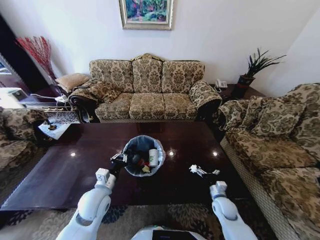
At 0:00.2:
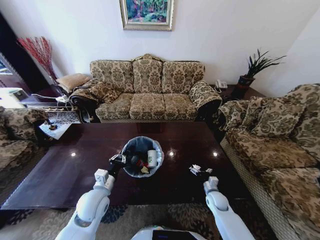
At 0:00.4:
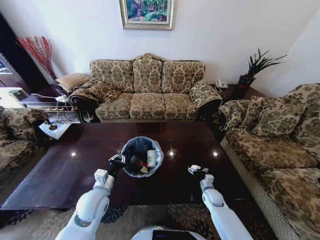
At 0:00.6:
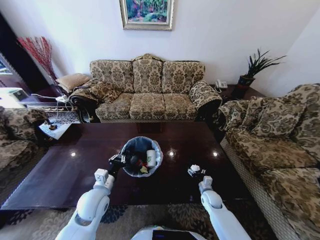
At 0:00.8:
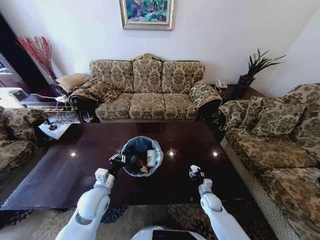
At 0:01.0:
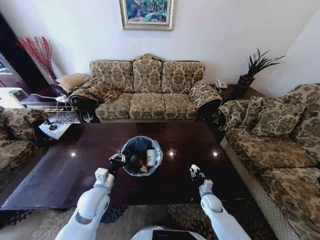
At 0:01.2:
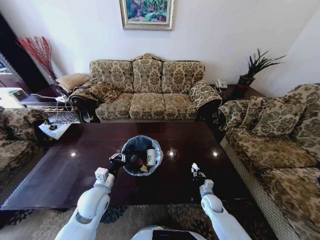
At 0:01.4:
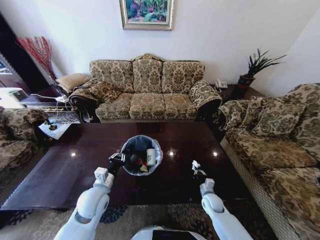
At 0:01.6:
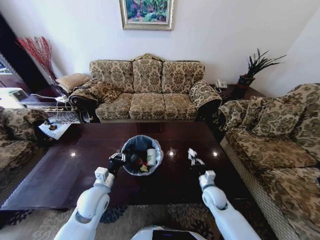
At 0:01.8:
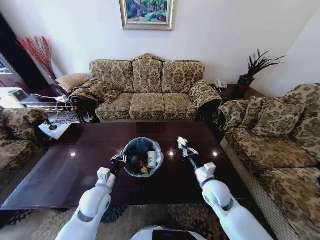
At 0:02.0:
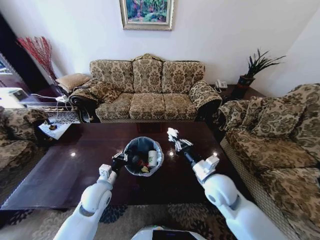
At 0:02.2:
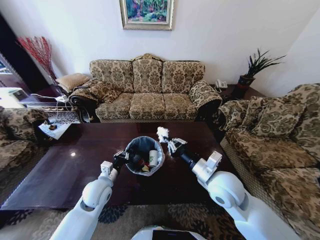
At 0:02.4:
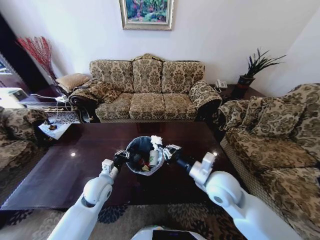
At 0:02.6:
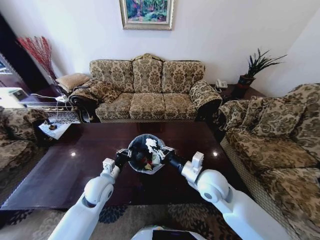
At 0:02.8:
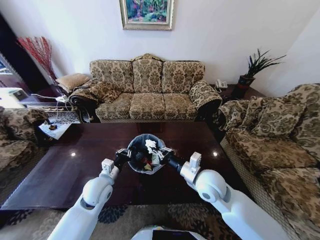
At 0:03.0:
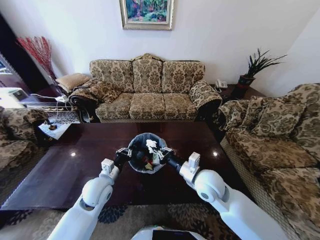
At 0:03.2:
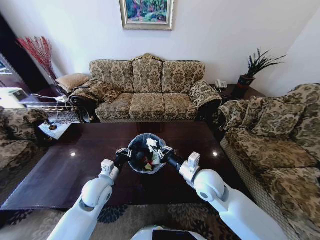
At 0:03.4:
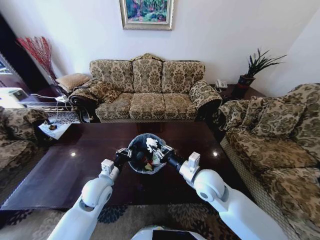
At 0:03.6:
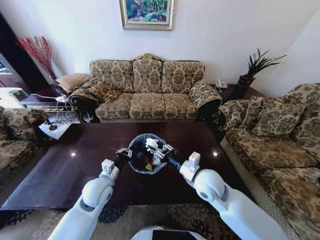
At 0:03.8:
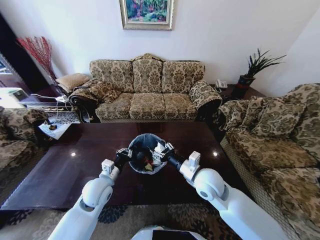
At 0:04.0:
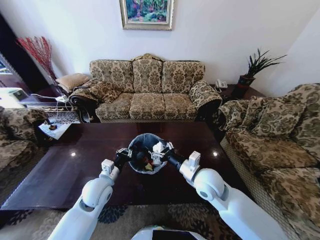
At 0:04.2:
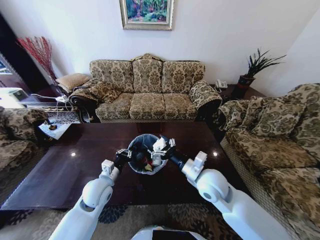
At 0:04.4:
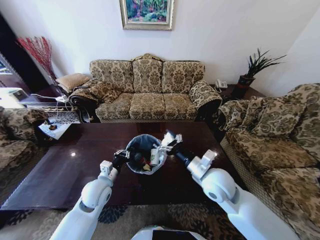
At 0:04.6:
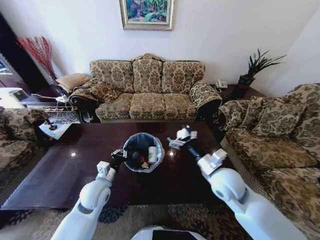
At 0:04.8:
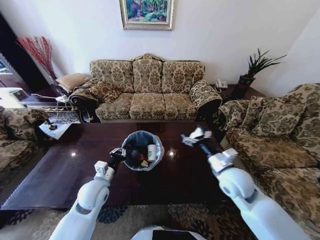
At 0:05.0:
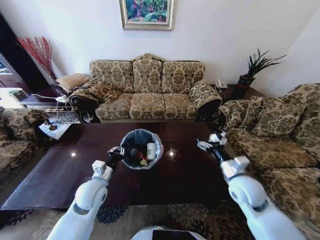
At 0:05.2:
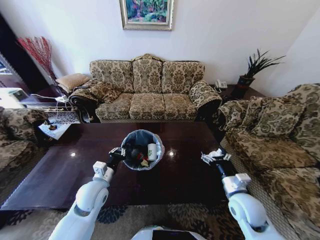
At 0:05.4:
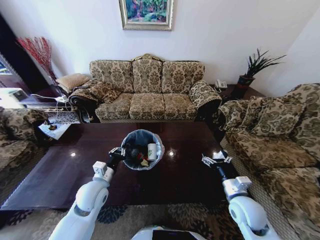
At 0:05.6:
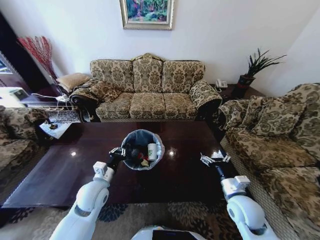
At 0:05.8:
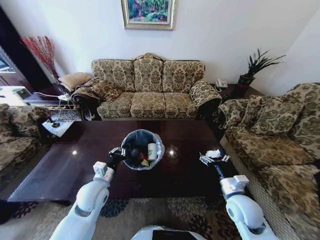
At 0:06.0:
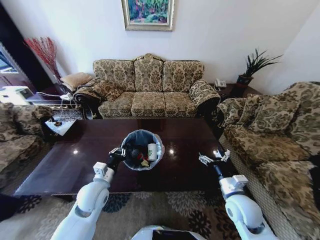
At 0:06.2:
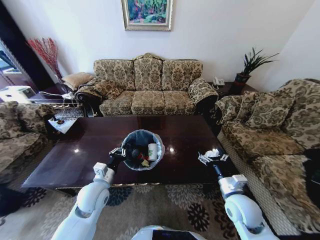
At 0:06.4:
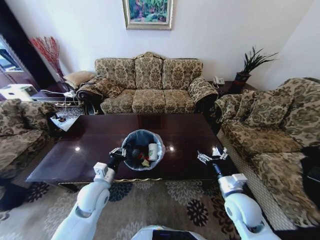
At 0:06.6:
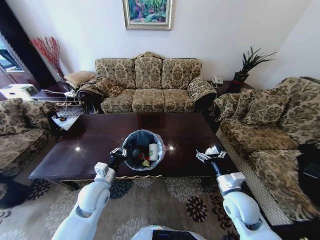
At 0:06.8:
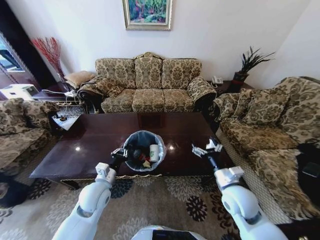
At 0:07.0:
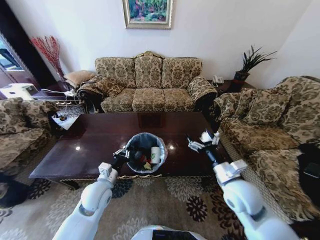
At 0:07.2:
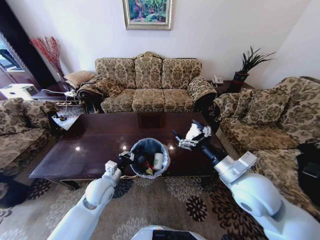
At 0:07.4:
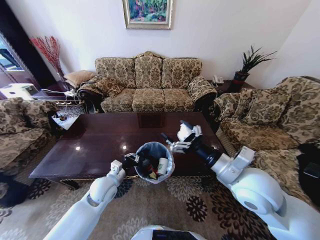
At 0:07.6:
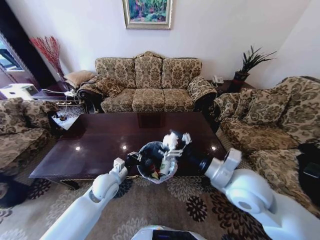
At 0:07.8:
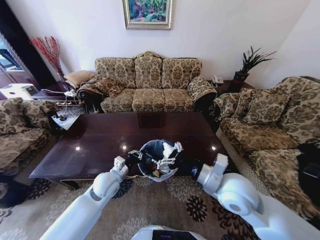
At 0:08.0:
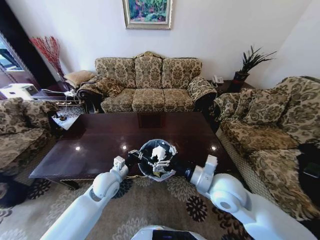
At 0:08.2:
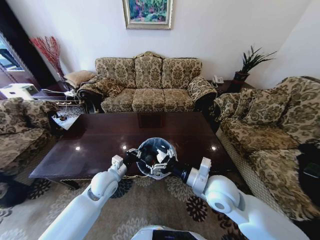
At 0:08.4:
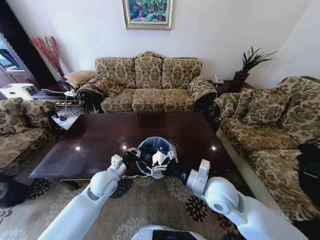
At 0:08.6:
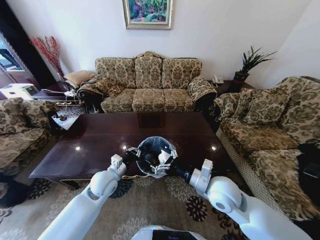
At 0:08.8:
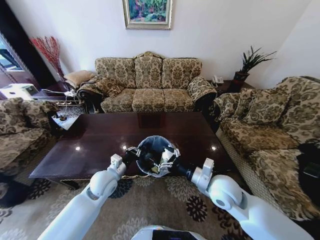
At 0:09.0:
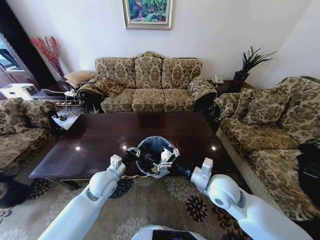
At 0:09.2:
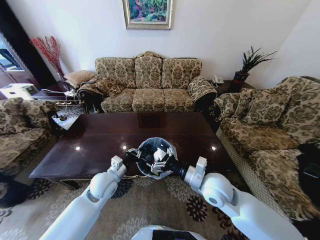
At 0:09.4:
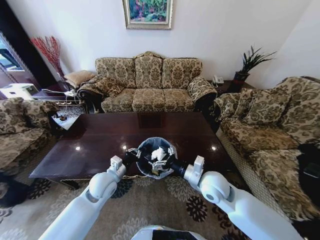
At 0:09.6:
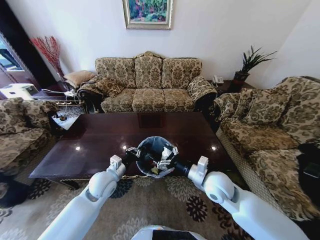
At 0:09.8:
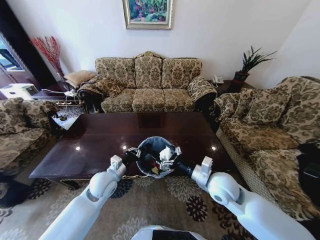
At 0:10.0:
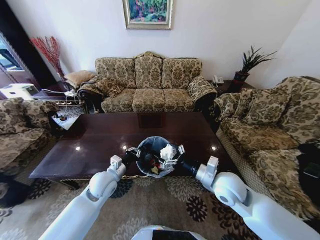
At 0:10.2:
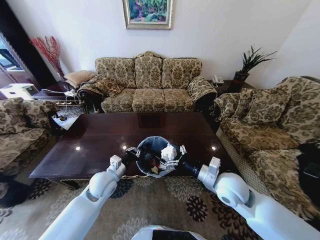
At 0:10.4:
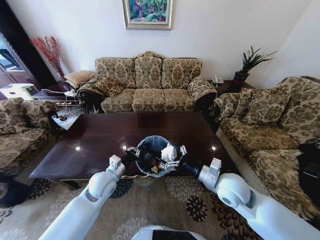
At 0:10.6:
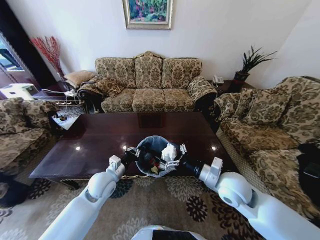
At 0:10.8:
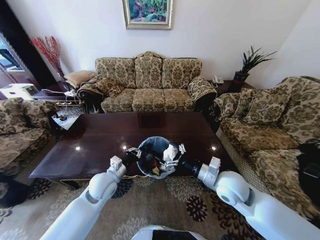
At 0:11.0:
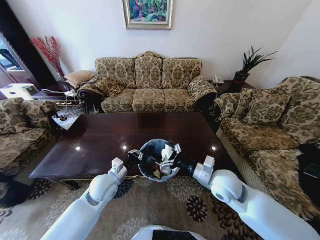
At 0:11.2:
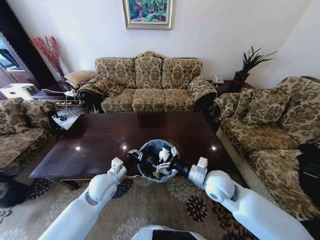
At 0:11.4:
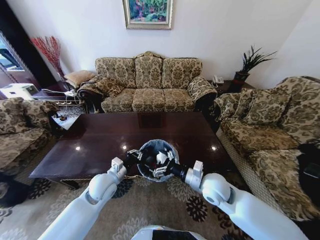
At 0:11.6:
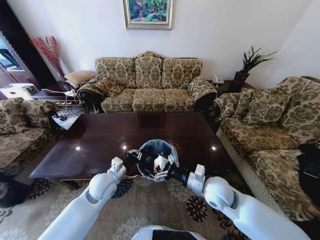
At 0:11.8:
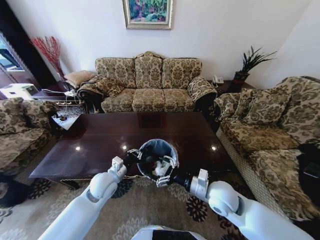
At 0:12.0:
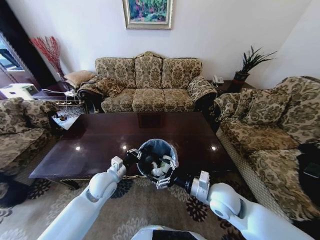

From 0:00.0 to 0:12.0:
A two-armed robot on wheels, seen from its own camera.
Task of the whole recording: Move to the front of the table and place the trash on the table into the trash bin.
From 0:00.0 to 0:01.6: The right gripper is displaced upward and to the left by about 10 cm, and closes.
From 0:01.6 to 0:03.0: The right gripper is displaced upward and to the left by some 20 cm.
From 0:03.0 to 0:04.4: The right gripper opens up.
From 0:04.4 to 0:06.0: The right gripper travels to the right and downward by about 15 cm.
From 0:06.0 to 0:07.6: The right gripper goes some 15 cm upward and to the left; the left gripper shifts by roughly 5 cm.
From 0:07.6 to 0:09.0: The right gripper goes about 10 cm downward.
From 0:09.0 to 0:12.0: There are only small adjustments of the grippers.

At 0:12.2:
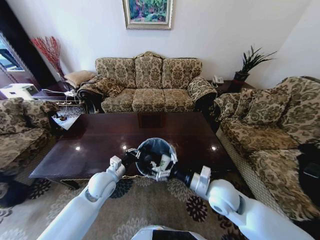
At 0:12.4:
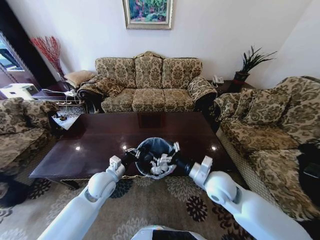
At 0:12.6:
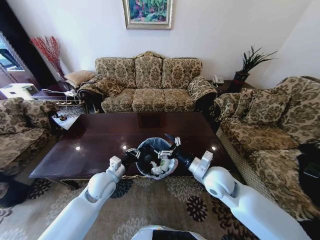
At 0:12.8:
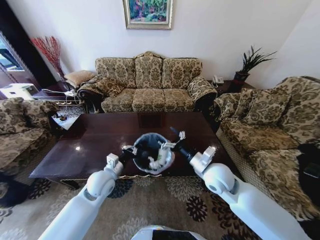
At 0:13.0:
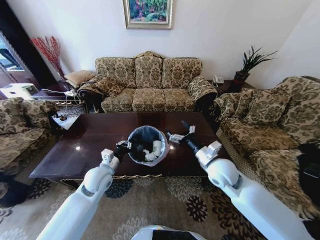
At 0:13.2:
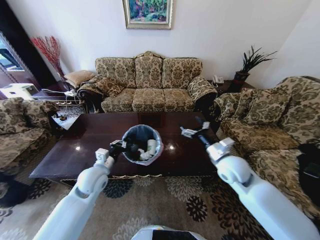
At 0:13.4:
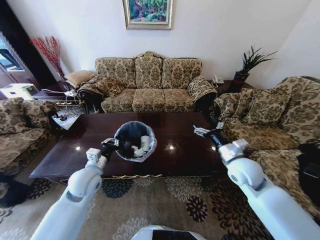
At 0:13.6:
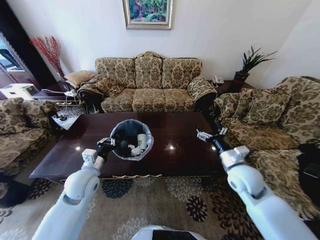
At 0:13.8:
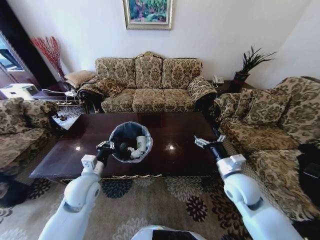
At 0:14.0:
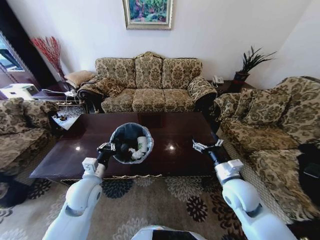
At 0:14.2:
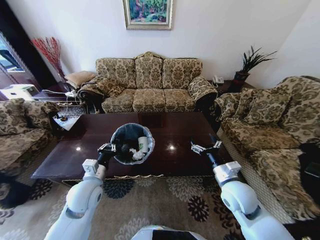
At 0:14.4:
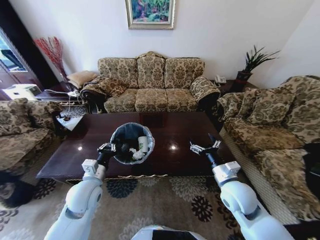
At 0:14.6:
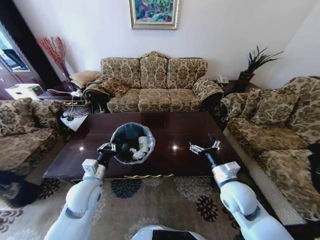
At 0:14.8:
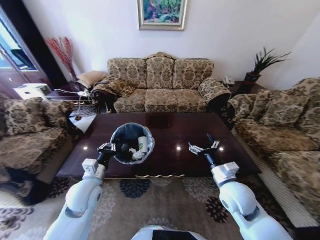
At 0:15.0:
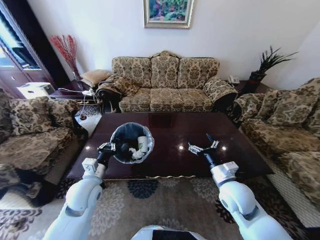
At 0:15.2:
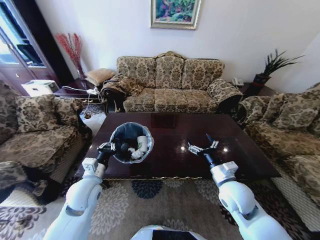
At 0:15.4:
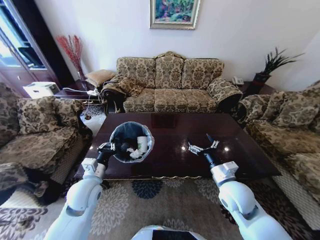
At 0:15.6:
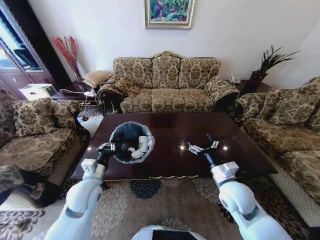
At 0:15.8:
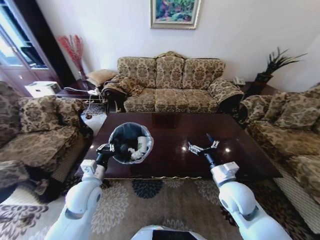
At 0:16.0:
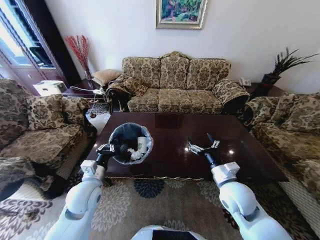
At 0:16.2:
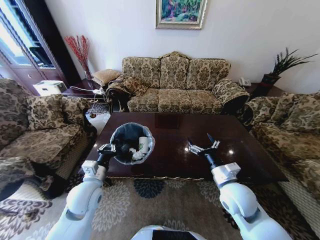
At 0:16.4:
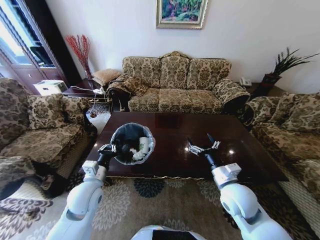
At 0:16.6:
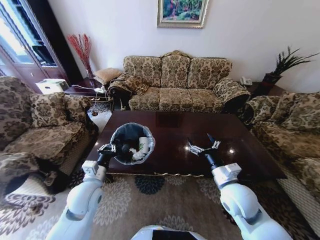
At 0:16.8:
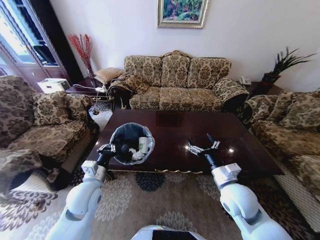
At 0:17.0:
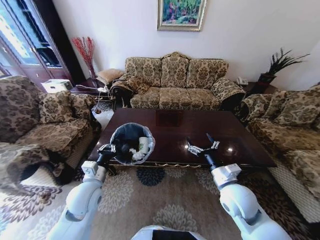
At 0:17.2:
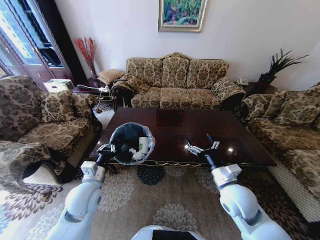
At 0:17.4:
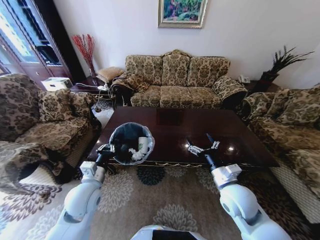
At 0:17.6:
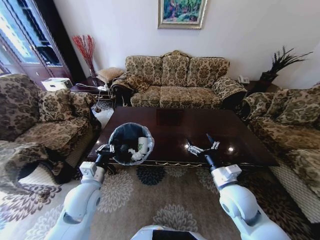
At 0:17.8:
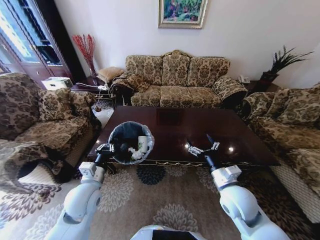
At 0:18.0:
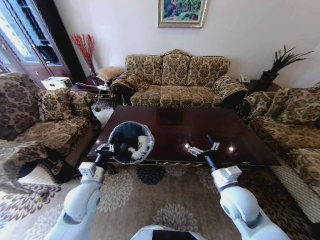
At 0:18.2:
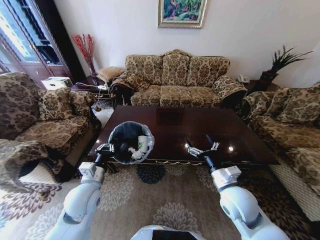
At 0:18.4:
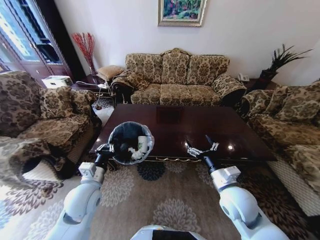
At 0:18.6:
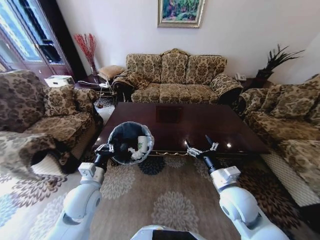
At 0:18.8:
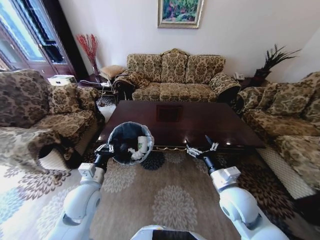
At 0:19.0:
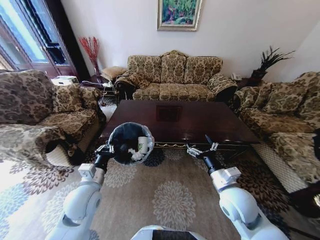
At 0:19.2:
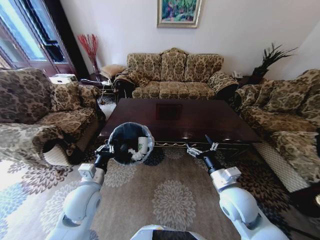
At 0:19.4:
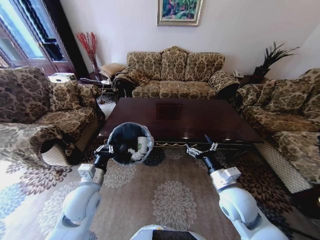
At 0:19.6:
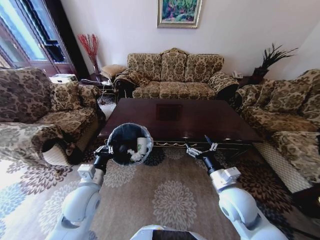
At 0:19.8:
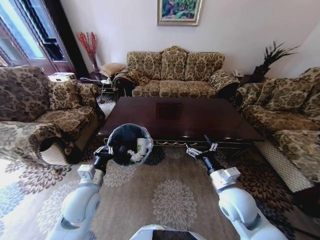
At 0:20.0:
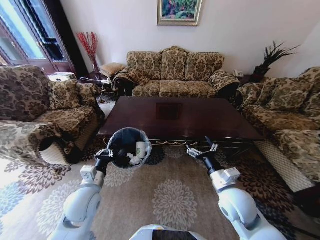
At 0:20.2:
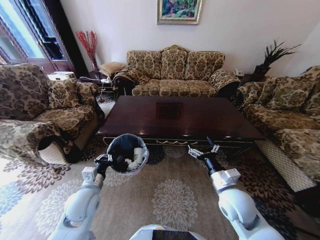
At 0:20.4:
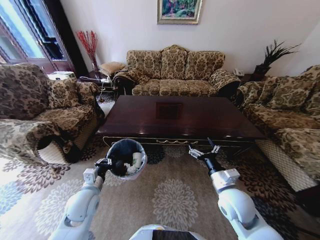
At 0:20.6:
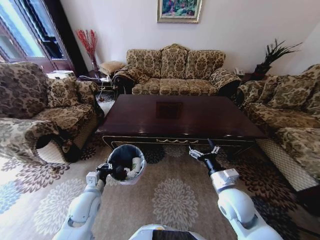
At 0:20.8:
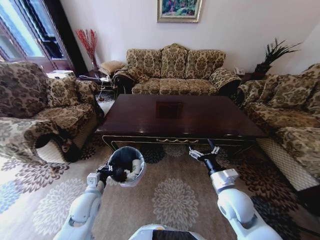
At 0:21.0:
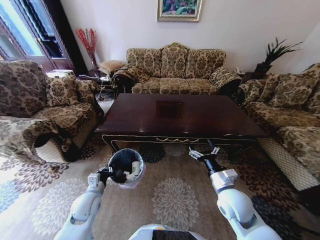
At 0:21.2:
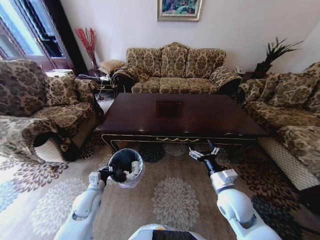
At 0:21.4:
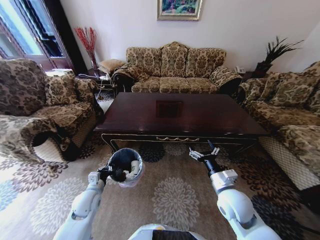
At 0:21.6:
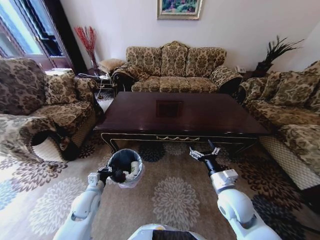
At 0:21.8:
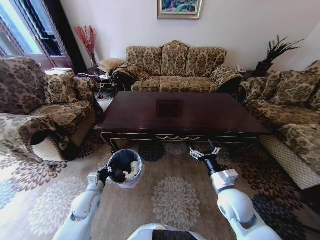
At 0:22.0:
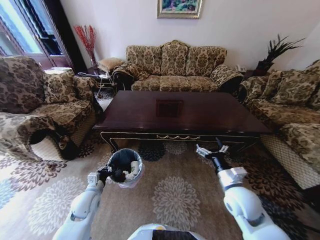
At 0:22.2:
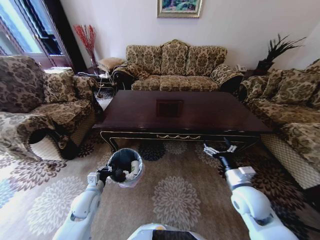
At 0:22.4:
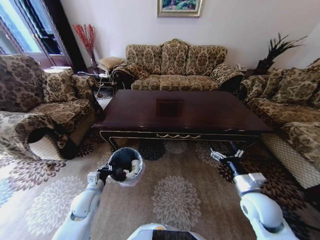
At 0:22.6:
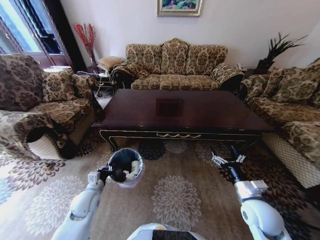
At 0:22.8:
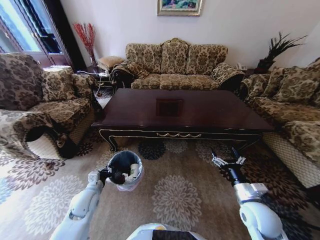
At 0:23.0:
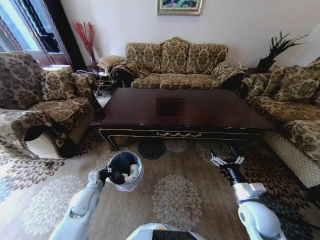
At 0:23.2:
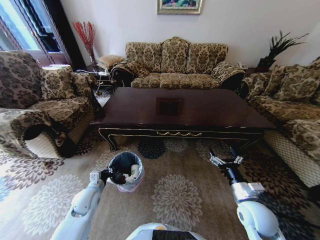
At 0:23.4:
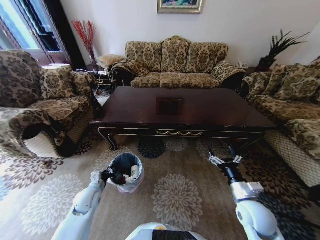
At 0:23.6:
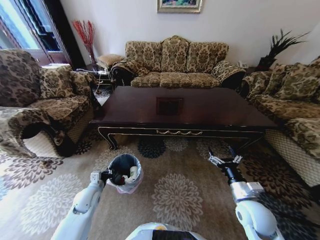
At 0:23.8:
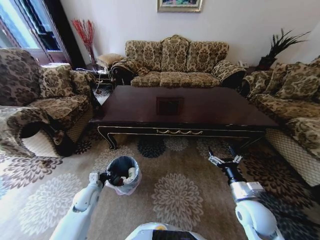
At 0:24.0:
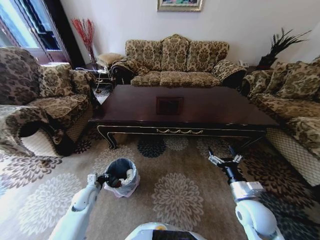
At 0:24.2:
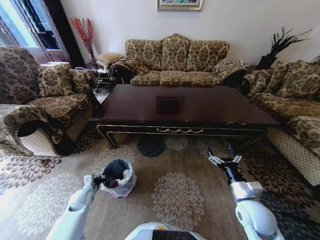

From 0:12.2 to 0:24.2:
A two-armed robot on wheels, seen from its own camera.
Task of the whole recording: Move to the front of the table and place the trash on the table into the trash bin.
From 0:12.2 to 0:13.8: The left gripper changes place by approximately 5 cm; the right gripper goes about 5 cm to the right.
From 0:19.8 to 0:21.2: The left gripper travels downward by about 10 cm.
From 0:21.2 to 0:22.6: The right gripper is displaced to the right by roughly 10 cm.
From 0:22.6 to 0:24.2: The left gripper heads downward and to the left, covering approximately 10 cm.
